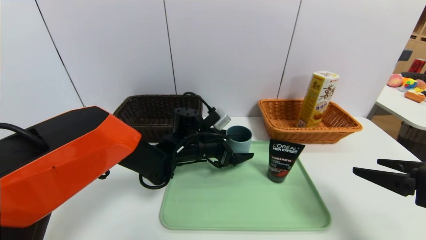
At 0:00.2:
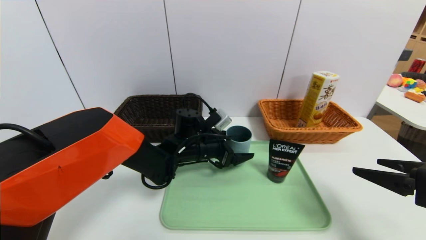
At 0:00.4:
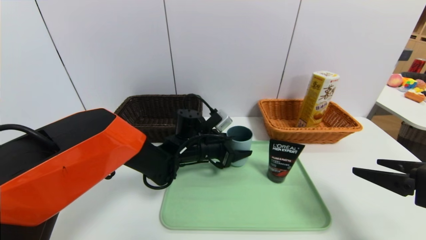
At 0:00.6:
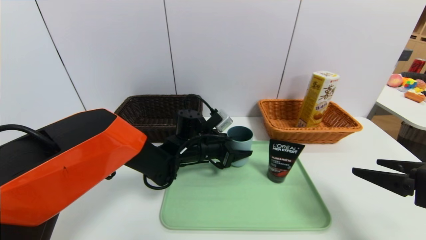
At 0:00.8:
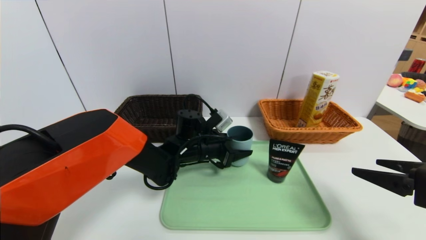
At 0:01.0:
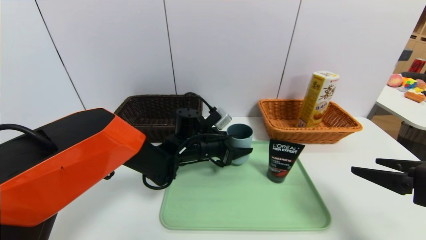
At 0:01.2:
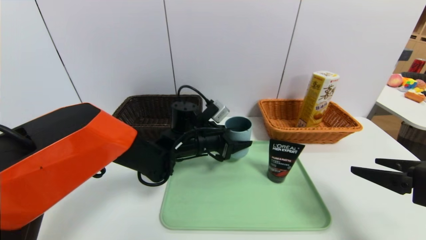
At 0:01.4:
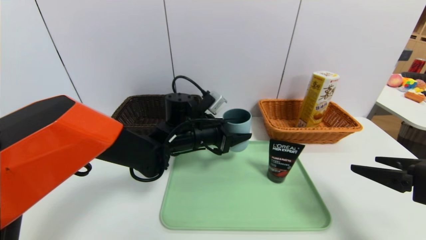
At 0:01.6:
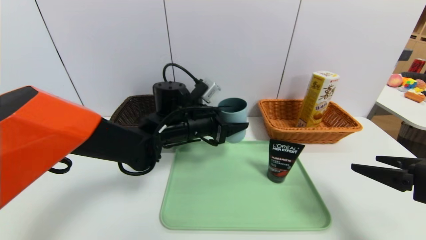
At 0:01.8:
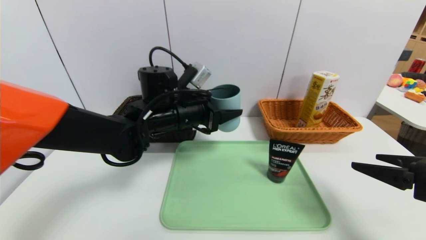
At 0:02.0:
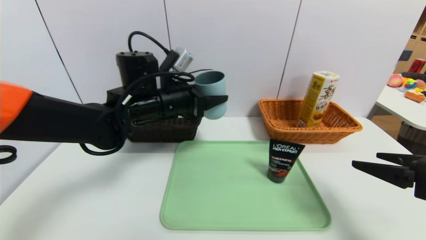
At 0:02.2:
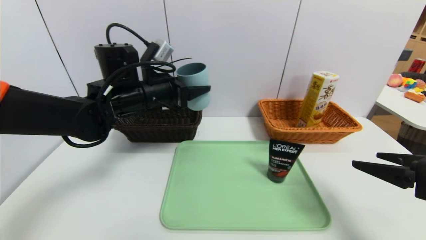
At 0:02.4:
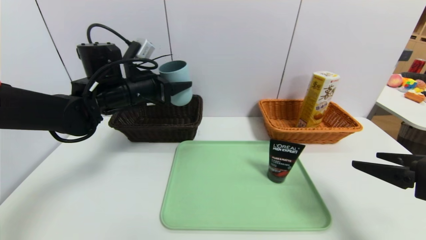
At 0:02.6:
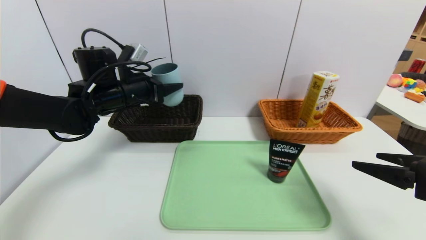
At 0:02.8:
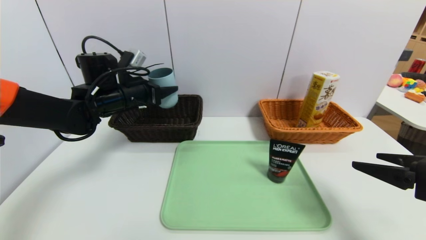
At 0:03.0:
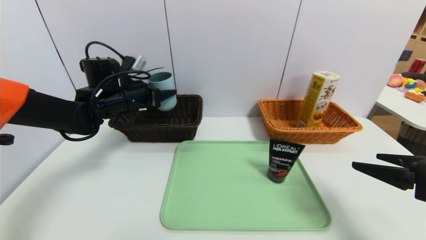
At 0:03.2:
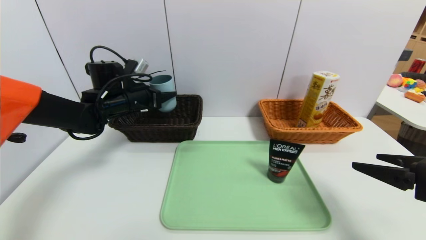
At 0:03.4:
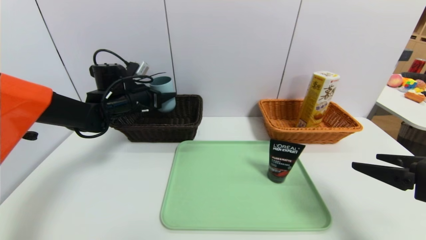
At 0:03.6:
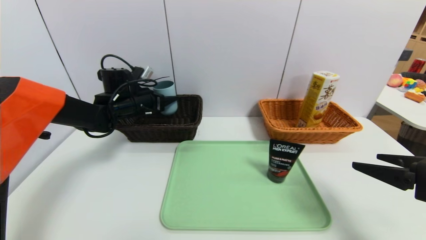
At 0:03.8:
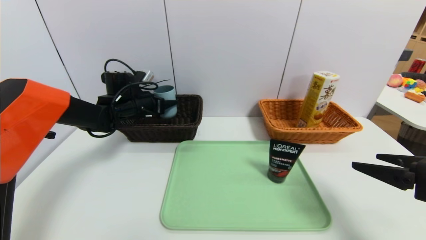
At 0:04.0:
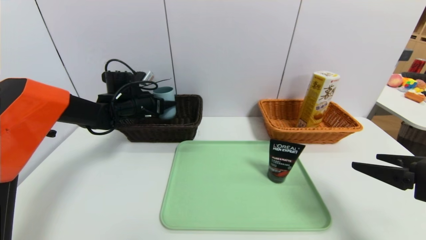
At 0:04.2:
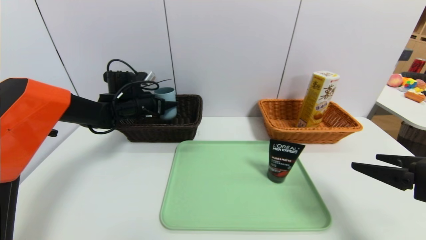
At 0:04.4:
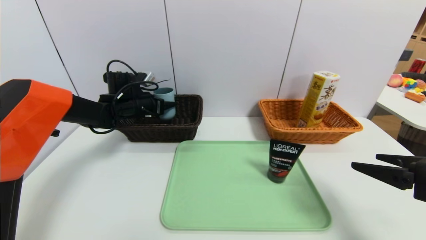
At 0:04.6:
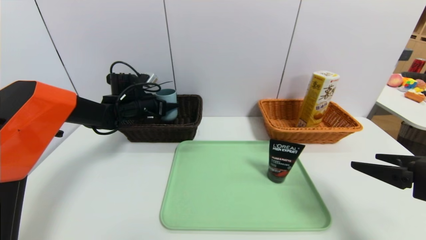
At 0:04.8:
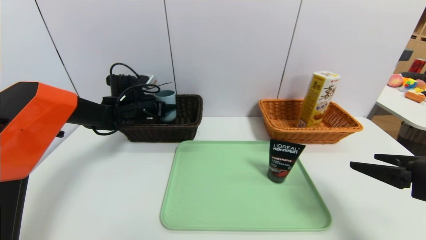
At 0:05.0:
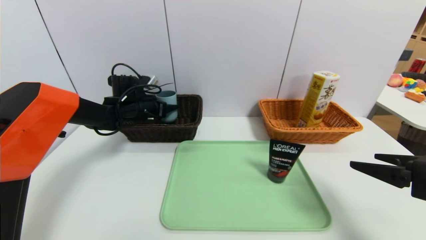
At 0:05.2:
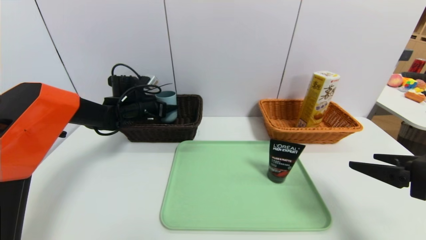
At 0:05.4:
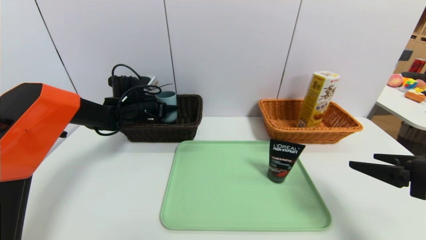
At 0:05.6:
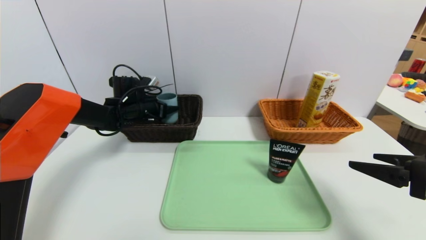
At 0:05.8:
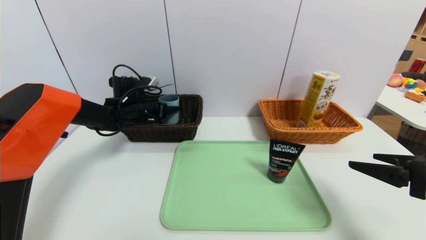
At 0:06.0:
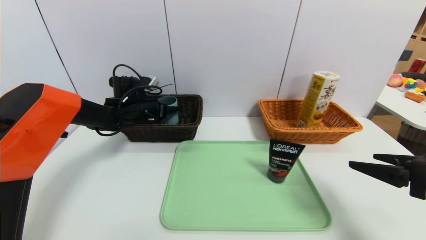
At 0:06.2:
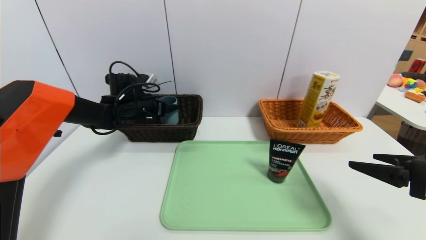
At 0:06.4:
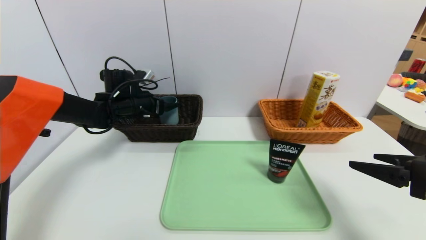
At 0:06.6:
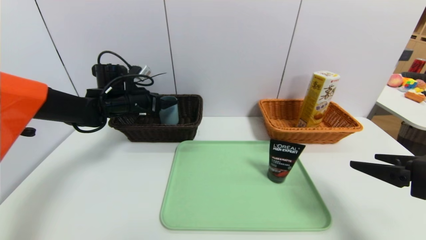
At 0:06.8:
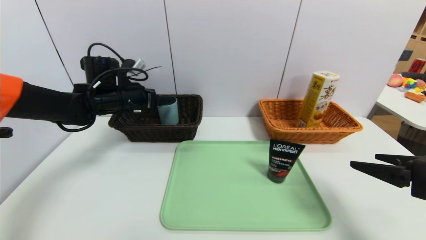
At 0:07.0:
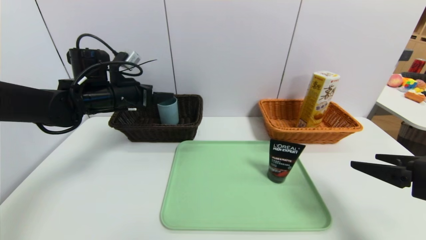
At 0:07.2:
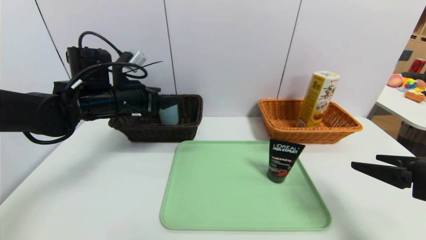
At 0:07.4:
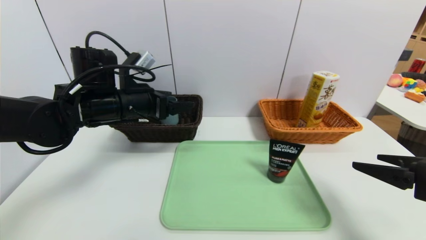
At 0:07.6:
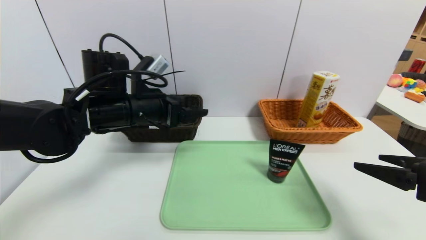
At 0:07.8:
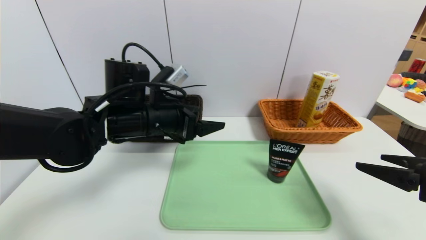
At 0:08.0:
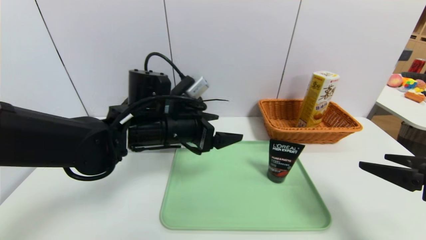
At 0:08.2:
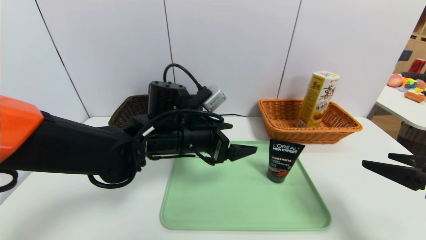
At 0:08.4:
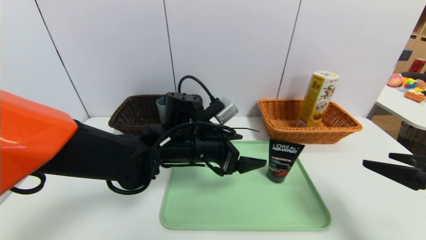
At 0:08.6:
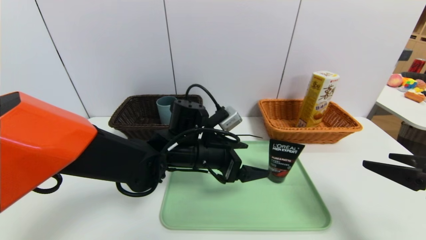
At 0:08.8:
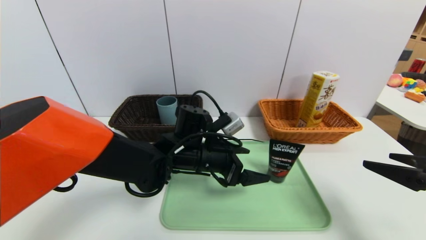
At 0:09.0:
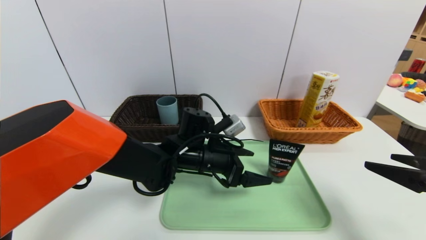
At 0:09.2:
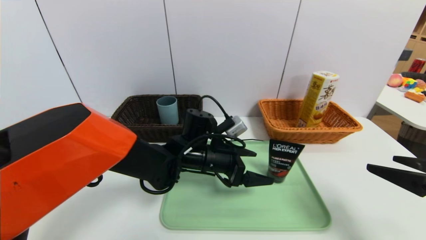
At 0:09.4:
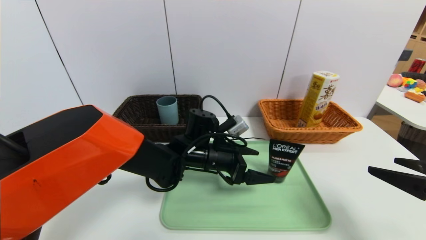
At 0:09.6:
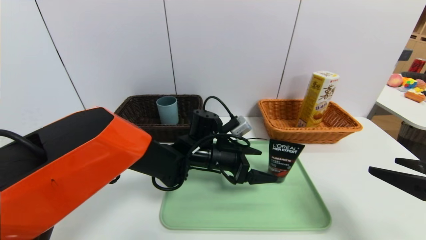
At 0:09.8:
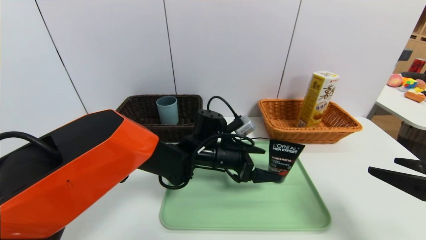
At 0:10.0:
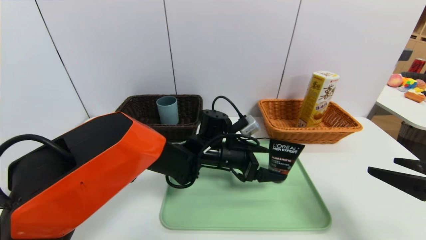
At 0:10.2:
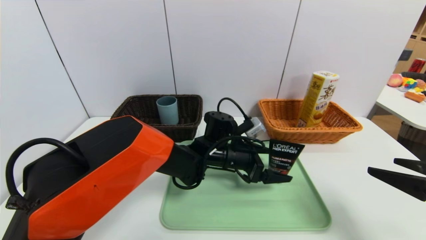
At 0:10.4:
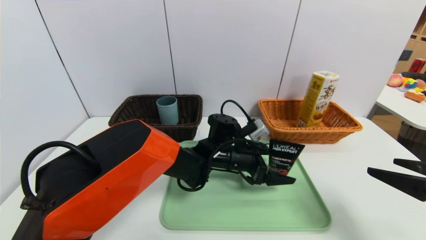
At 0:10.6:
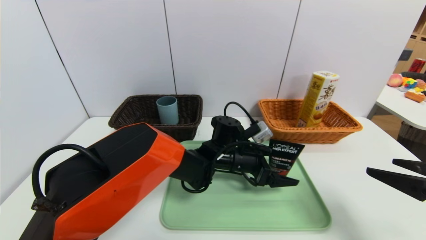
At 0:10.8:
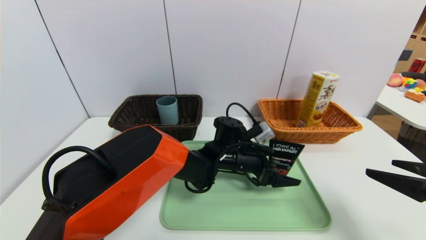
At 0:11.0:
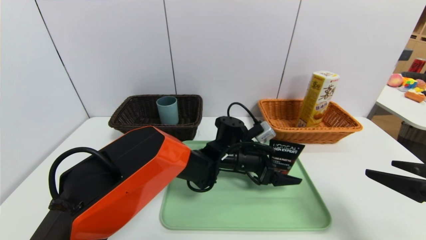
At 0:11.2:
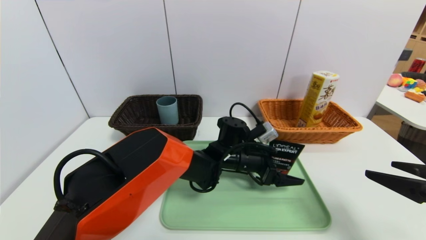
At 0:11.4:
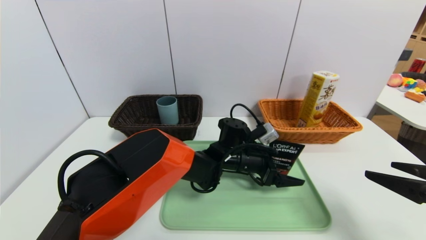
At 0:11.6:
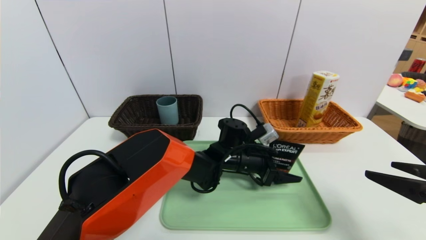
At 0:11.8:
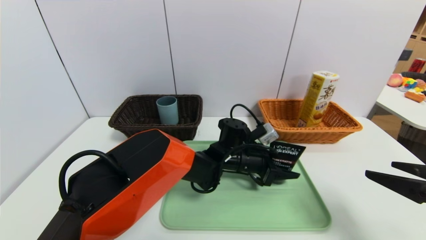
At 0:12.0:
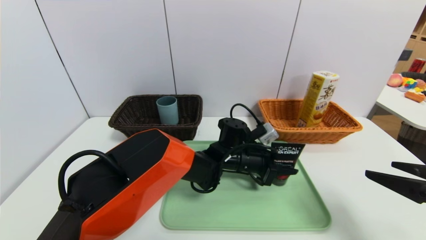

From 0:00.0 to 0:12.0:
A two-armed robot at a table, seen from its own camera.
Task of the whole recording: place the food in the right basket with the right gripper, and place the non food items in the left basket with the left gripper.
Step, from 0:00.0 to 0:06.2: Grasp the tea cup and put it in the left basket.
From 0:00.0 to 0:01.6: The left gripper shifts roughly 5 cm upward, and closes its fingers.
From 0:01.6 to 0:03.0: The left gripper travels to the left by about 15 cm.
From 0:03.0 to 0:04.4: The left gripper travels forward by about 5 cm.
From 0:04.4 to 0:06.0: The grippers stay close to where they were, moving slightly.
From 0:06.0 to 0:07.6: The left gripper travels backward, upward and to the right by approximately 20 cm.
From 0:07.6 to 0:09.0: The left gripper travels to the right and downward by roughly 15 cm.
From 0:09.0 to 0:10.4: The left gripper goes approximately 5 cm to the right.
From 0:10.4 to 0:12.0: The left gripper closes up.

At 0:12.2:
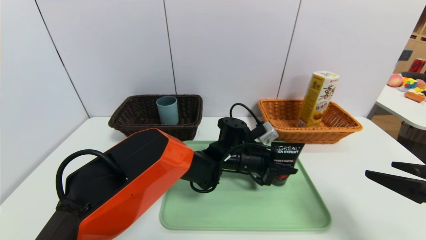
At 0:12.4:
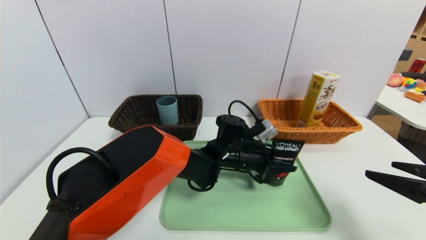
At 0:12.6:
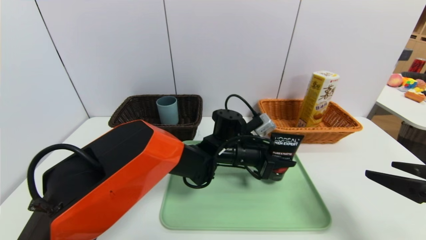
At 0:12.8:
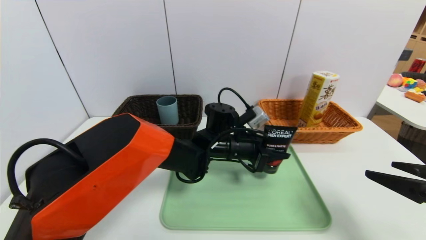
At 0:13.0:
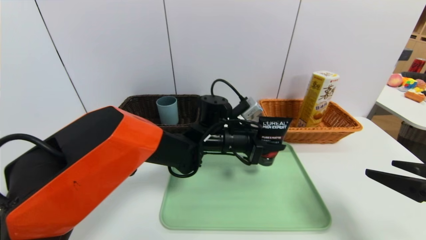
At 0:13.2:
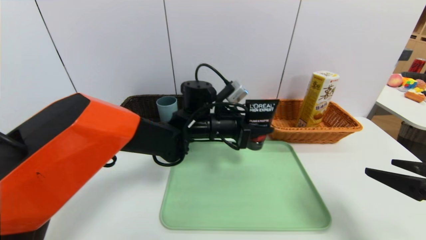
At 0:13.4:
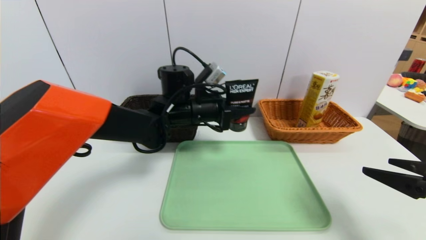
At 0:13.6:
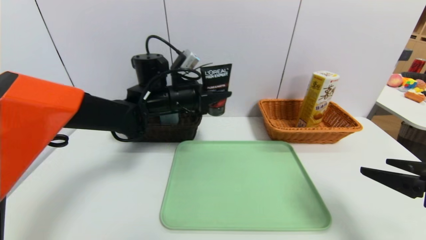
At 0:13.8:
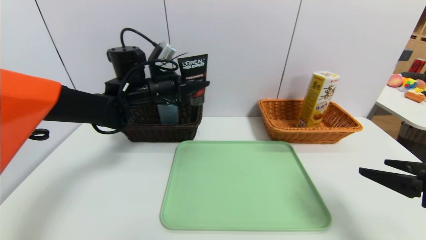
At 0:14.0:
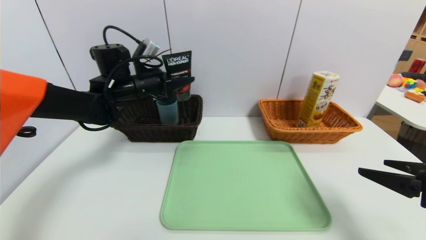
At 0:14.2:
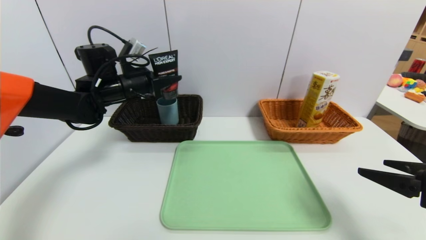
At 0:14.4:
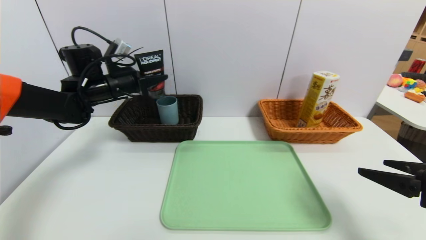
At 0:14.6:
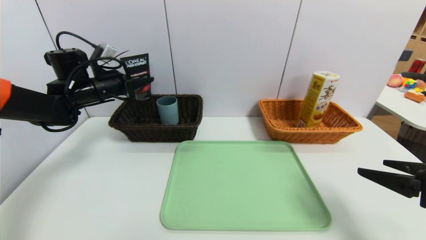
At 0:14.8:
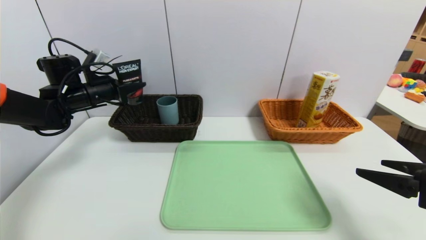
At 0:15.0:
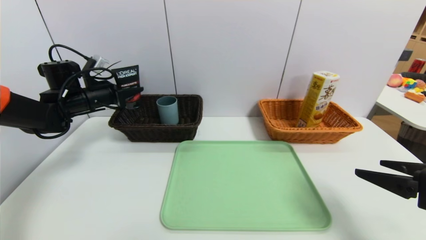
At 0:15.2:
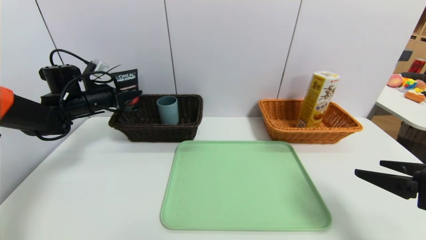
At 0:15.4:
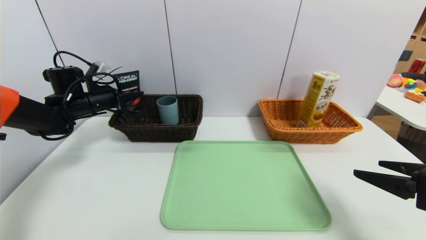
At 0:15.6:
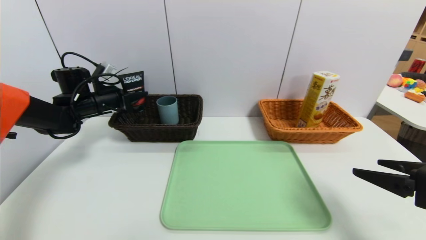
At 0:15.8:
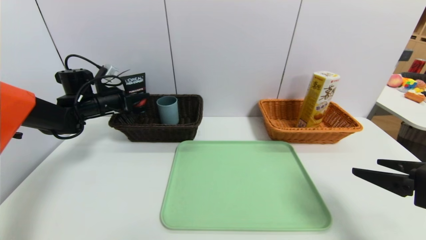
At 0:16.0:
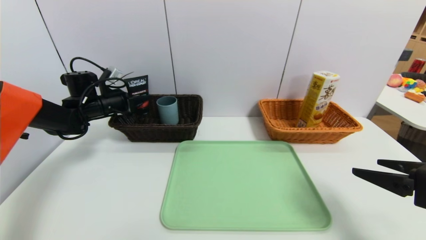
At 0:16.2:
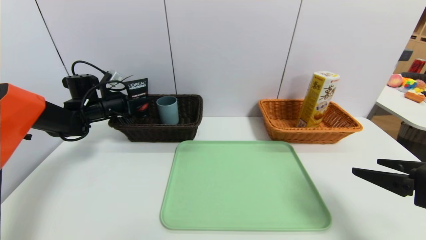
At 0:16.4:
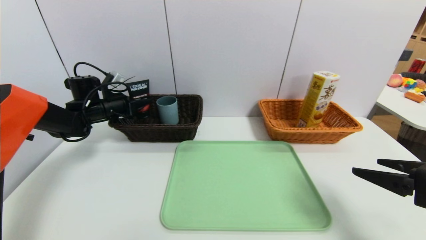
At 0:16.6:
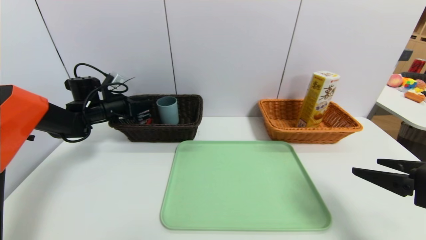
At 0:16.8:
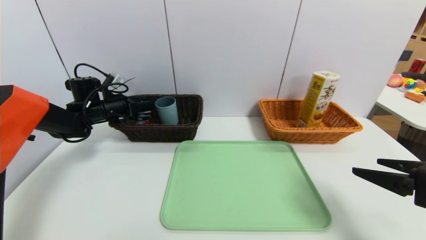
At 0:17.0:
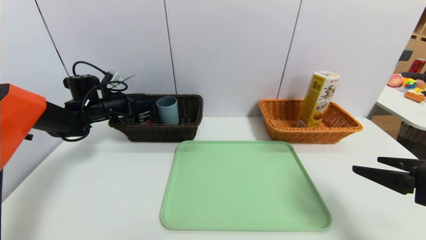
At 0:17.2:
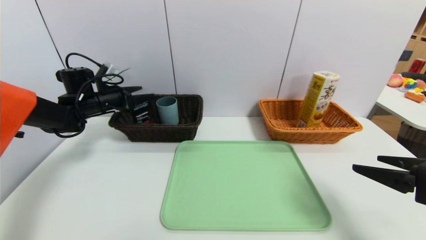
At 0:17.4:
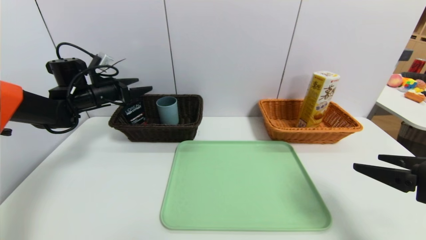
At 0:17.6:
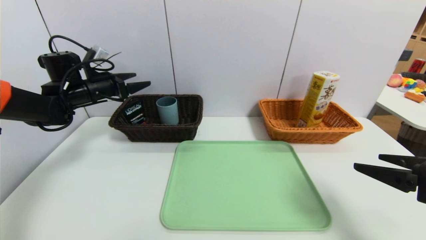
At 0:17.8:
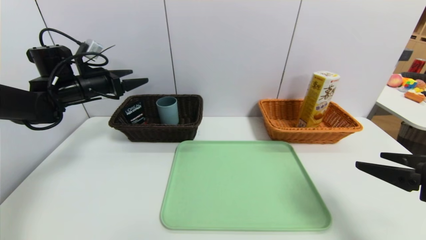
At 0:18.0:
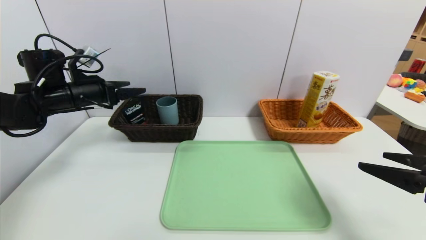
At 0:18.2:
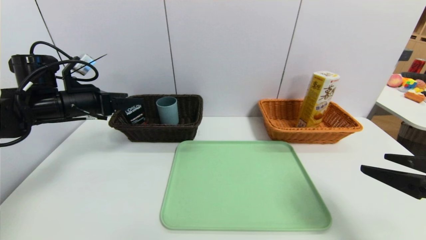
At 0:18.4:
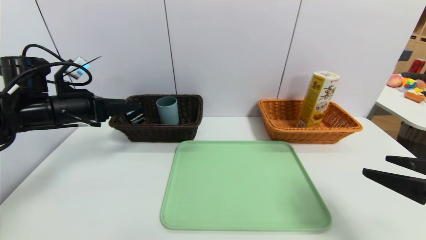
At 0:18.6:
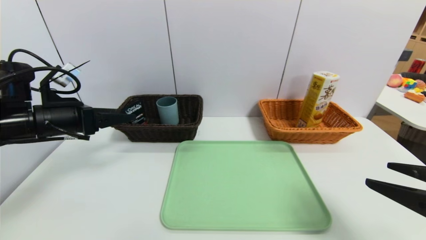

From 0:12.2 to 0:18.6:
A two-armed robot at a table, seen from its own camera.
Task of the whole recording: place the food in the right basket with the right gripper, and place the non food items in the left basket with the left gripper.
Step, from 0:12.2 to 0:17.0: Grasp the soft cleanser and put it in the left basket.
From 0:12.2 to 0:13.8: The left gripper shifts roughly 25 cm to the left and upward.
From 0:13.8 to 0:15.4: The left gripper heads to the left, covering roughly 20 cm.
From 0:15.4 to 0:17.0: The left gripper opens up.
From 0:17.0 to 0:18.6: The left gripper shifts some 20 cm backward.
